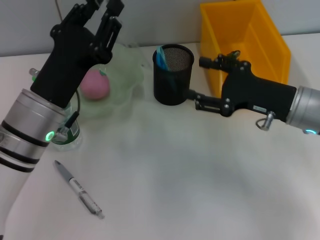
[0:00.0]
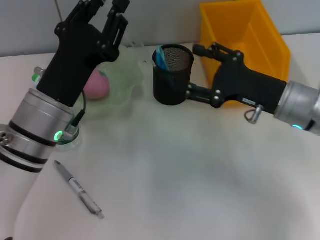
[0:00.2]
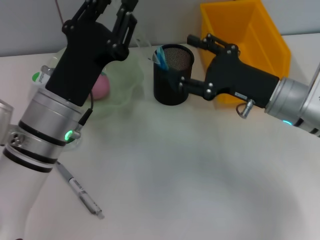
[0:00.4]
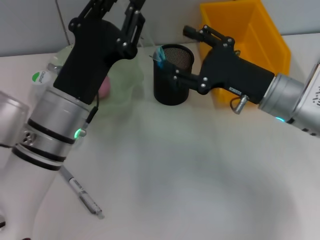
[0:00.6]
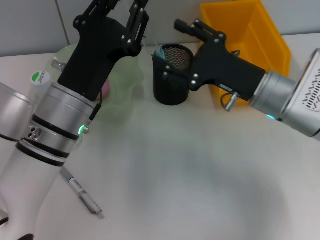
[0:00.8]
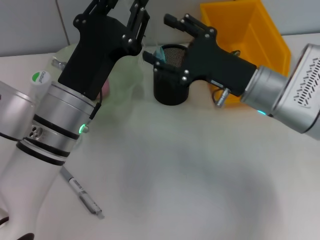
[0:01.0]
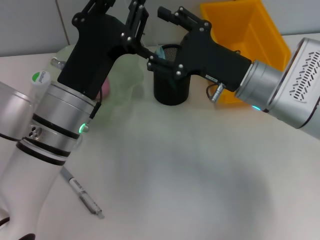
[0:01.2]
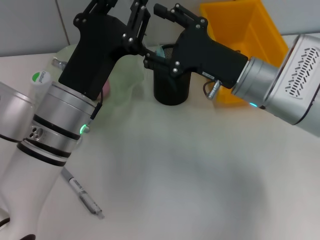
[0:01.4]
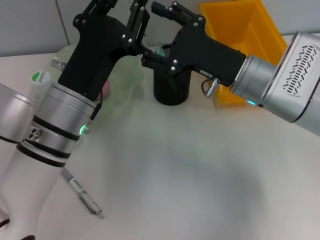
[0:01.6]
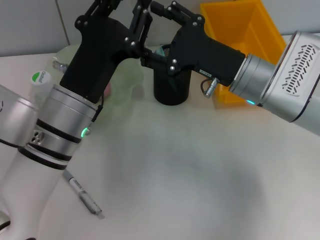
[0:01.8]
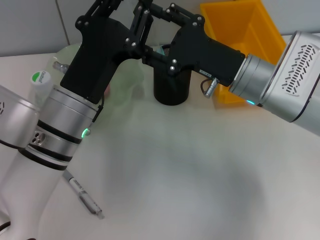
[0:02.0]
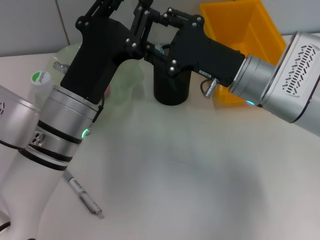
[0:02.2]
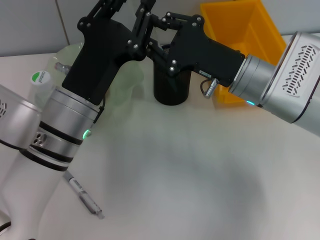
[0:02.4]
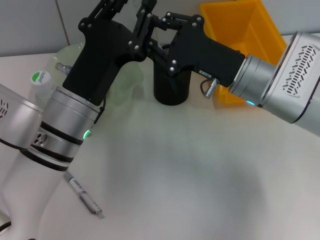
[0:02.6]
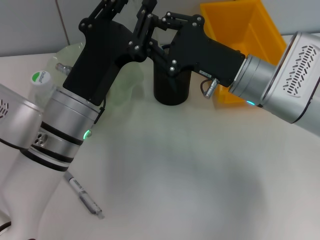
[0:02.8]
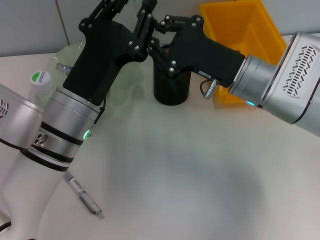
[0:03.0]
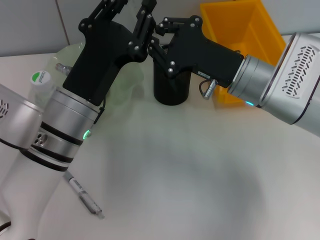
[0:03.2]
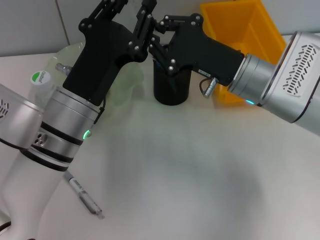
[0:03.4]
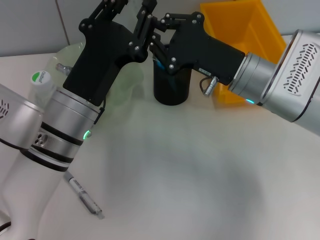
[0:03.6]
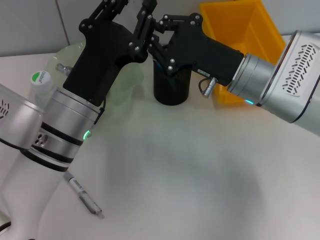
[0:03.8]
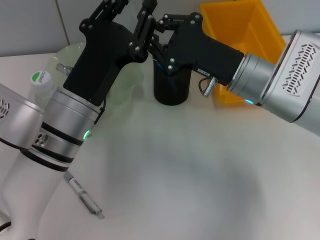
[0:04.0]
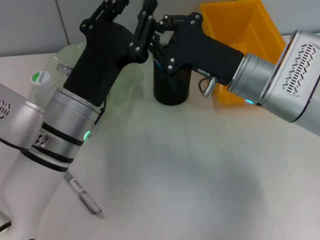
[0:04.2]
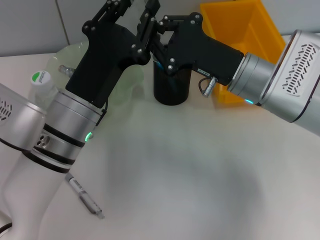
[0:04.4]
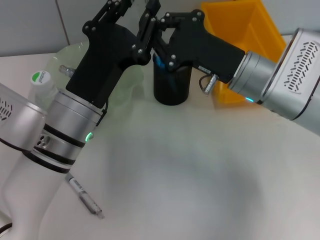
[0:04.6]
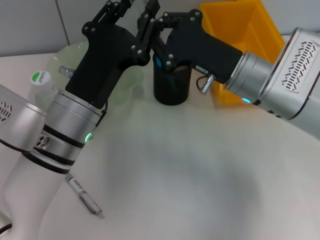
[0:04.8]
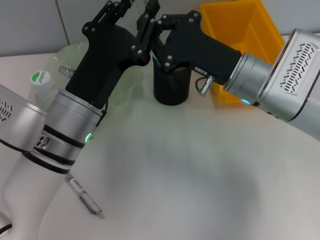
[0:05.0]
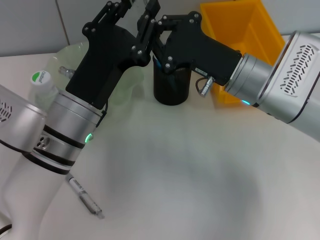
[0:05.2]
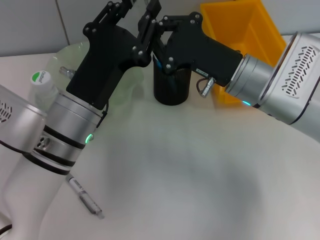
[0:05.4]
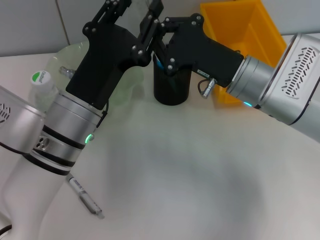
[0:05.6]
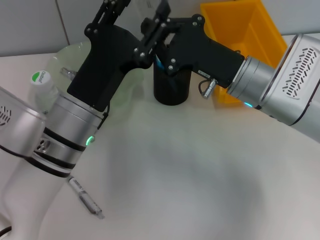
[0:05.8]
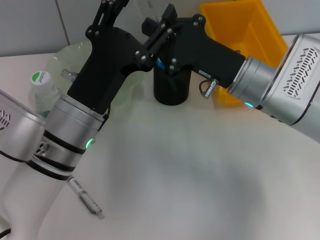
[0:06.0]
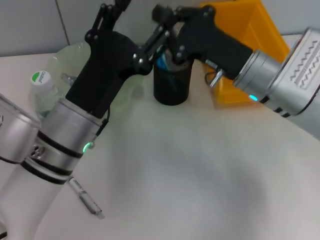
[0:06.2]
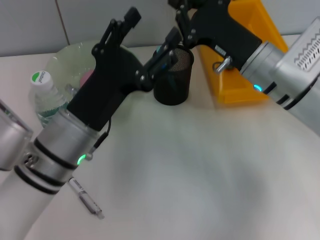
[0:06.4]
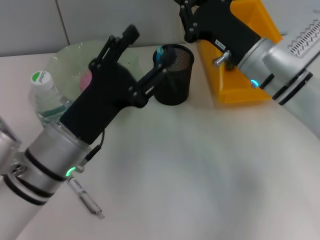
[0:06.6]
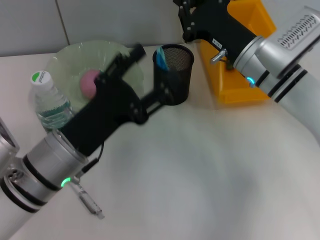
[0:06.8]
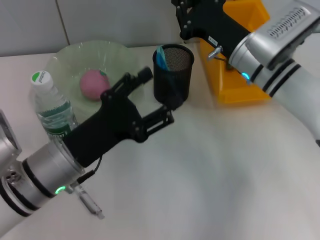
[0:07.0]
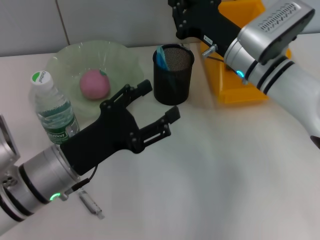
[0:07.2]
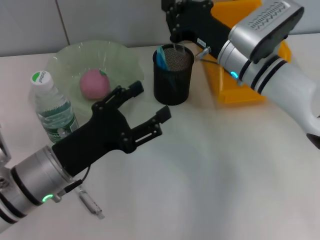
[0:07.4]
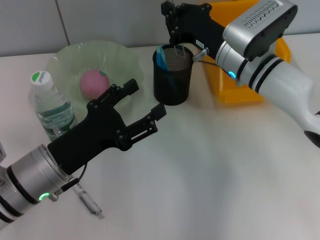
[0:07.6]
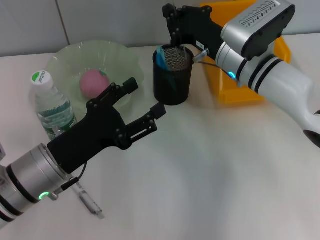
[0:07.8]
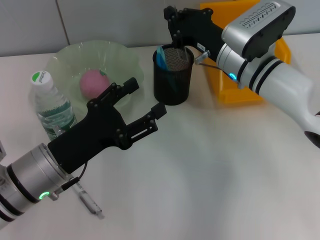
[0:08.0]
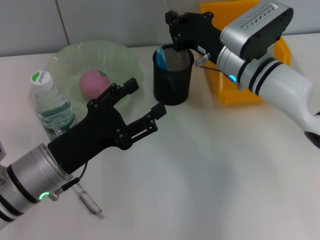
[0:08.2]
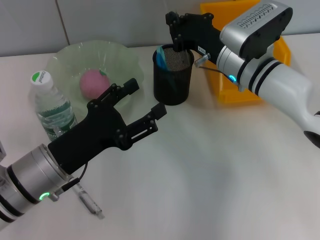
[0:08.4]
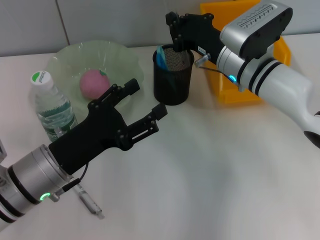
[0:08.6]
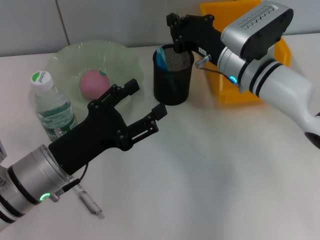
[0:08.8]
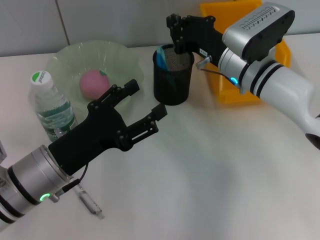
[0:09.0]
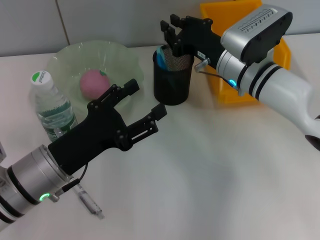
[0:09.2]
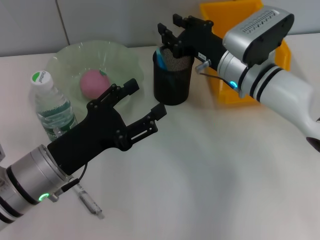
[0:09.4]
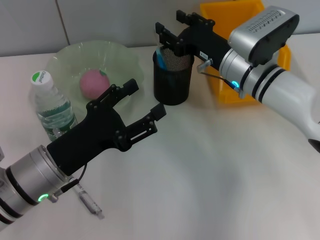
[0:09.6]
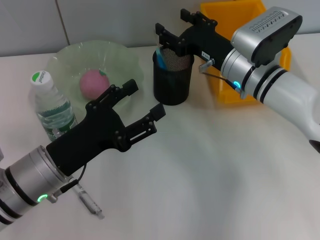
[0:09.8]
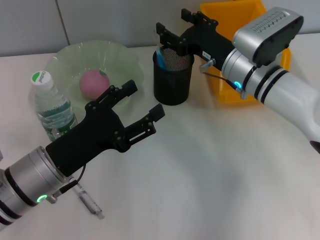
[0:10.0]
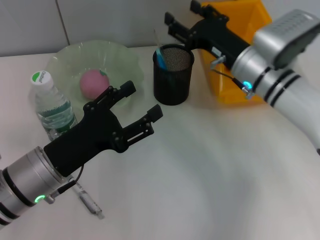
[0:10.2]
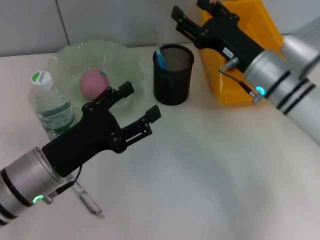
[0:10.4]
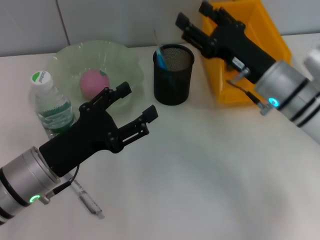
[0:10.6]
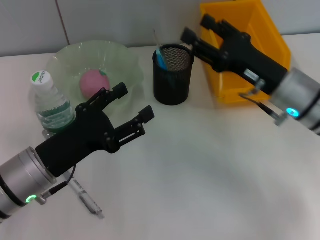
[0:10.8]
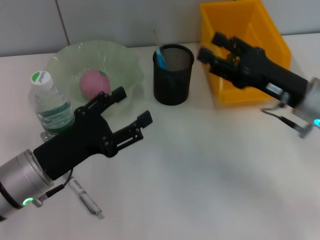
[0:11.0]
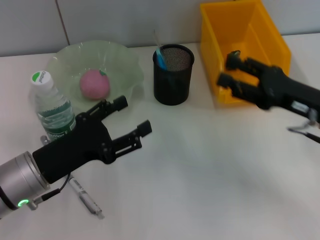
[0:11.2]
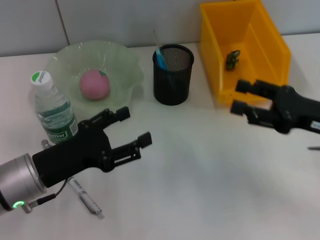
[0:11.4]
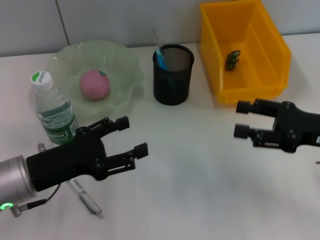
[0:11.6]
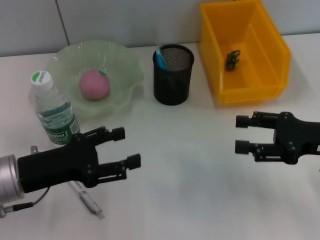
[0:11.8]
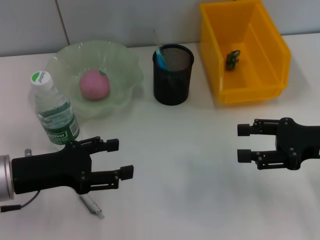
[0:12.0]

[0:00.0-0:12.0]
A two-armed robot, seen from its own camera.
Step, 0:00.0 to 0:05.8: Pass the ruler from the left hand to the right hand.
Step, 0:06.2 to 0:09.4: Place the ruler into the pen holder with the right hand.
0:00.0 to 0:01.6: The right gripper goes some 10 cm to the left.
0:01.6 to 0:03.0: The right gripper closes its fingers.
0:03.0 to 0:04.4: Both grippers stay put.
0:04.4 to 0:06.0: The left gripper opens its fingers.
0:06.0 to 0:07.6: The right gripper heads forward, covering roughly 5 cm. The left gripper moves to the left, roughly 5 cm.
0:07.6 to 0:09.0: The grippers make only small movements.
0:09.0 to 0:10.4: The right gripper opens its fingers.
0:10.4 to 0:12.0: The left gripper shifts some 5 cm to the left; the right gripper shifts approximately 15 cm to the right and backward.

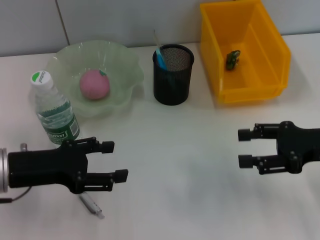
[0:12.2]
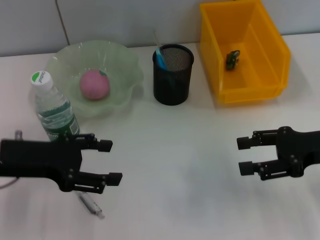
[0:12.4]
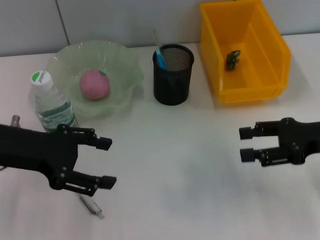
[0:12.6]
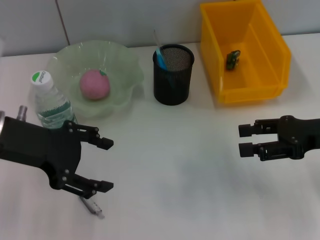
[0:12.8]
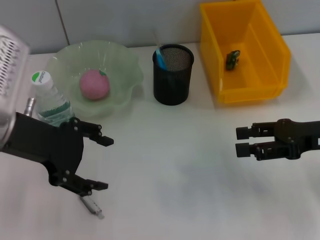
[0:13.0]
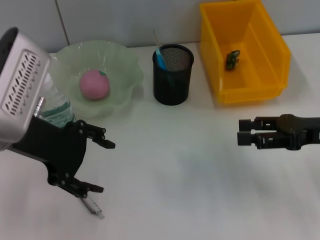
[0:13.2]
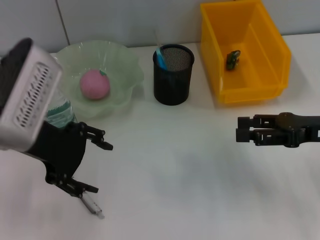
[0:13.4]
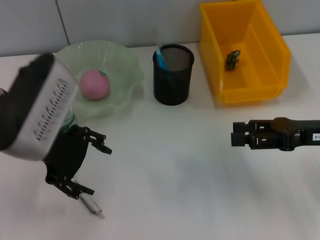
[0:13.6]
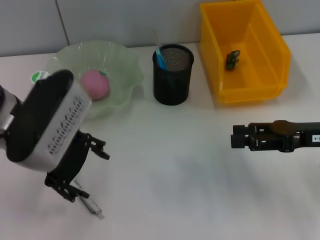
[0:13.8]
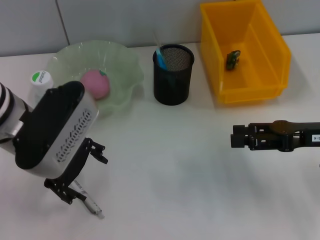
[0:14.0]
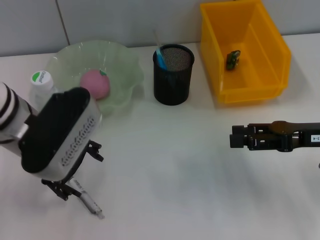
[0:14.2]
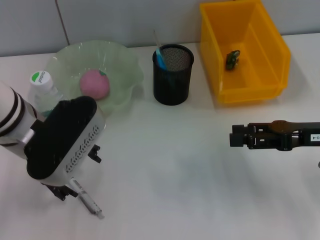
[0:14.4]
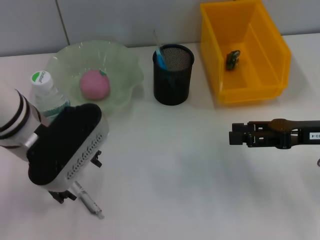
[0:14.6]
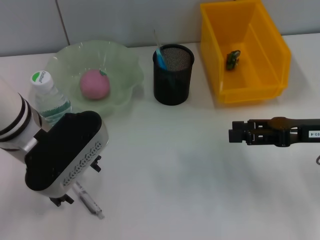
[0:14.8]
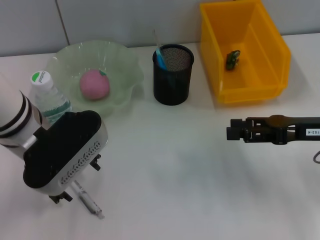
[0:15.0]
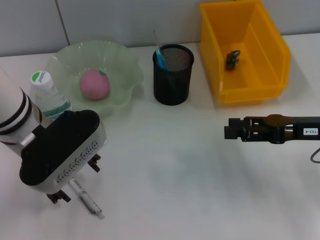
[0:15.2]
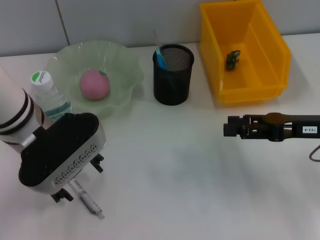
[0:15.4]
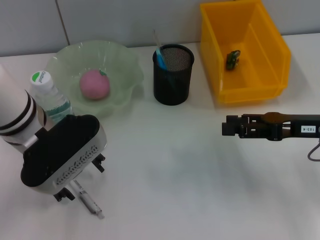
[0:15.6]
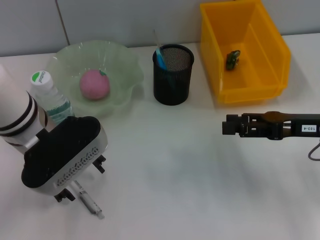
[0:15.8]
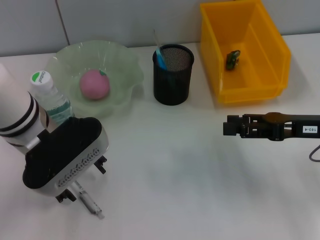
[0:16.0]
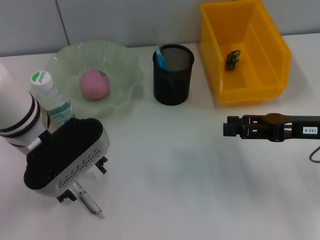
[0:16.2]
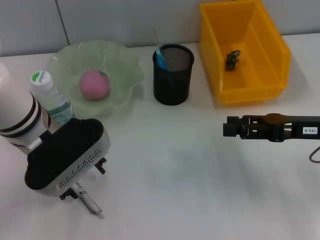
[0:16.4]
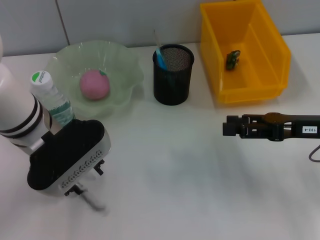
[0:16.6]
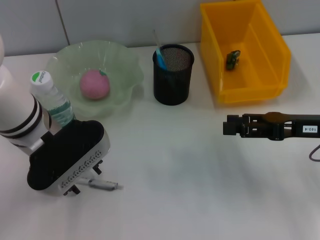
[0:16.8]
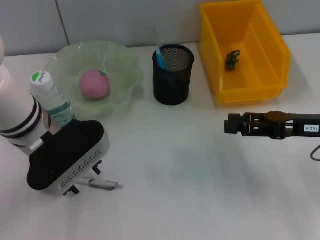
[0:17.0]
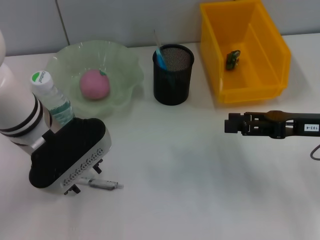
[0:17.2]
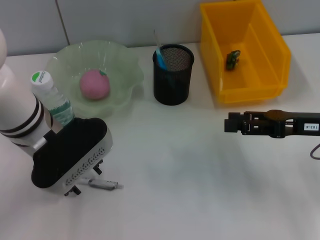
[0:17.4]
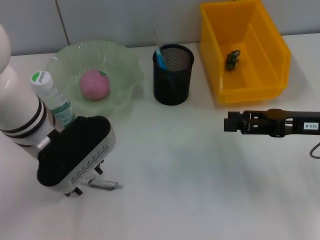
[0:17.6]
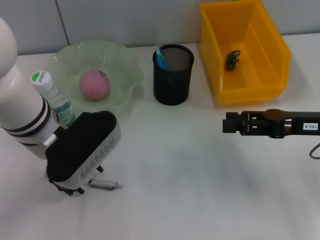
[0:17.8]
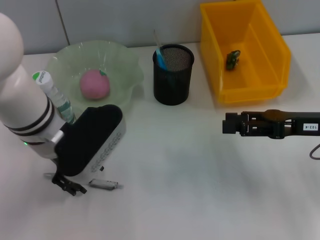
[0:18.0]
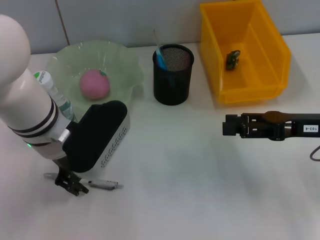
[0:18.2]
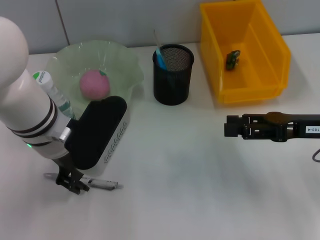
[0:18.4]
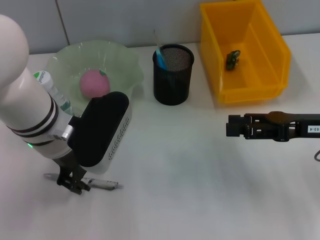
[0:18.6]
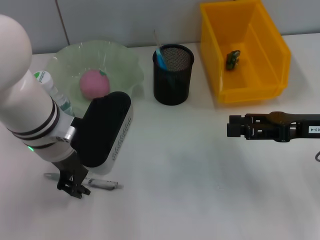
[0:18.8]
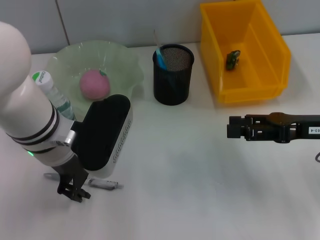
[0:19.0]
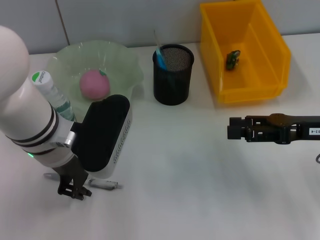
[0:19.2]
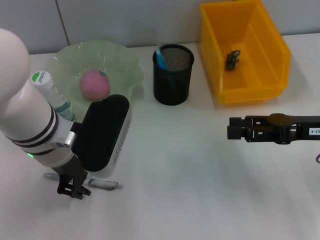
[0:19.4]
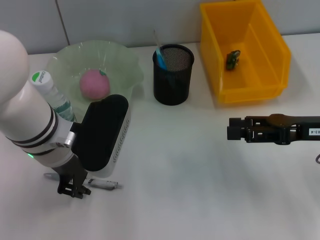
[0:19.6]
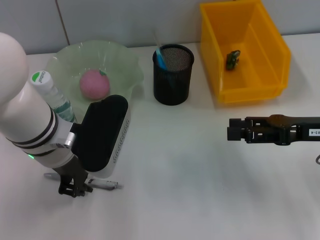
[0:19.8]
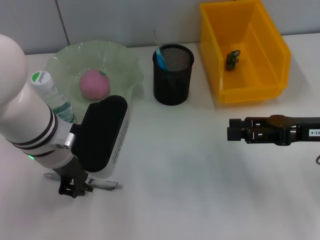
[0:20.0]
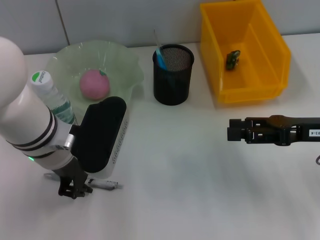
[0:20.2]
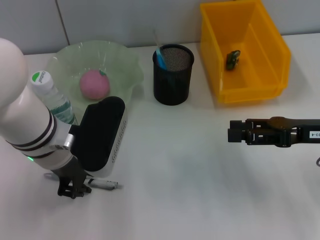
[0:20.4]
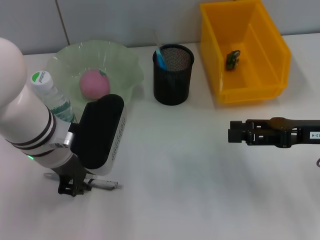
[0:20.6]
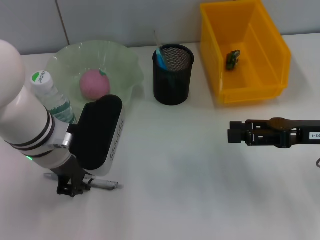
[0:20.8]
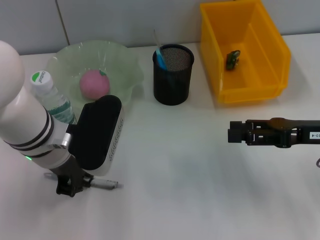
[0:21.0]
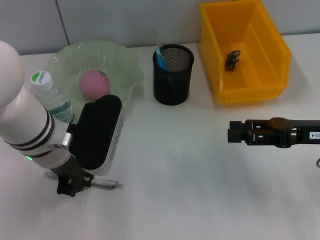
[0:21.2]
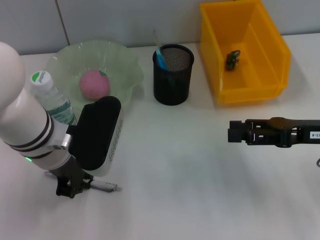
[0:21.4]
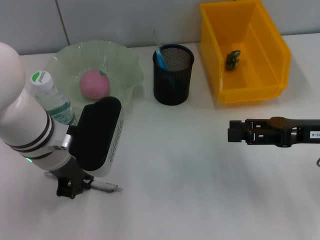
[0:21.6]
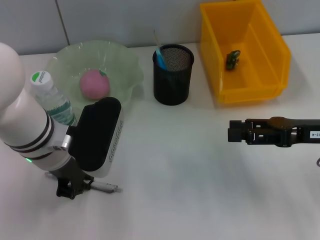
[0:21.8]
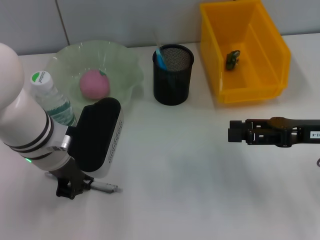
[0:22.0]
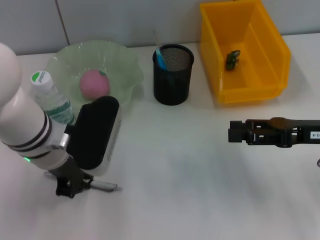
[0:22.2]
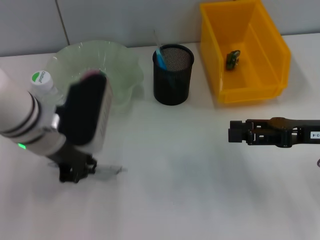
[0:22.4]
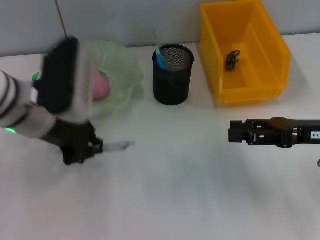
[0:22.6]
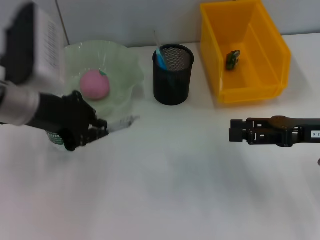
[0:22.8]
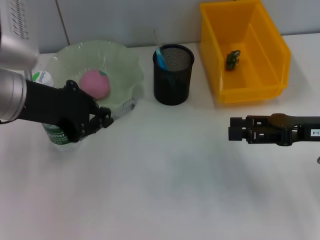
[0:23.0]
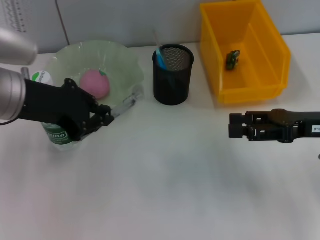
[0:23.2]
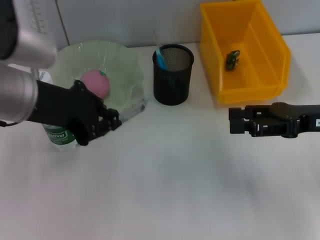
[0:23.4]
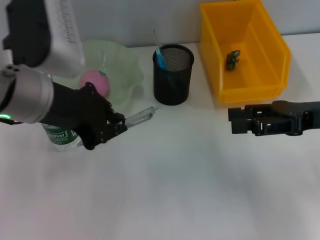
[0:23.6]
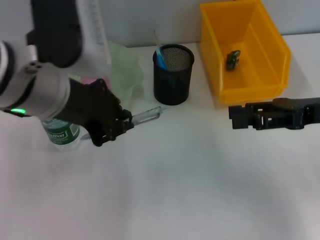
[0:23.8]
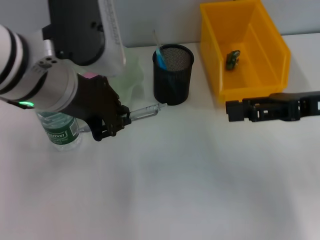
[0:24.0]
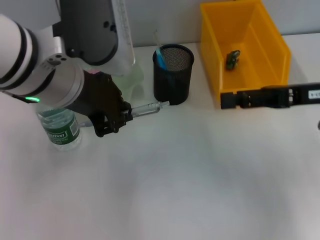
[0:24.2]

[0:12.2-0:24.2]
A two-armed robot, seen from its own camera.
Step, 0:12.2 to 0:21.4: Grab the gray spring-action pen with the left hand.
0:12.2 to 0:13.8: The left gripper travels upward and to the right by some 10 cm.
0:13.8 to 0:15.2: There are only small adjustments of the grippers.
0:15.2 to 0:18.2: There are only small adjustments of the grippers.
0:18.2 to 0:19.8: The grippers stay close to where they were, moving slightly.
0:19.8 to 0:21.2: The left gripper closes up.
0:21.2 to 0:22.6: The left gripper shifts by approximately 5 cm.
0:22.6 to 0:24.2: The right gripper heads upward, covering roughly 5 cm. Meanwhile the left gripper shifts approximately 10 cm upward and to the right.
